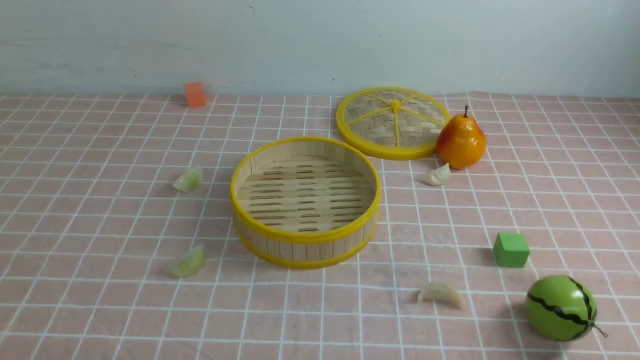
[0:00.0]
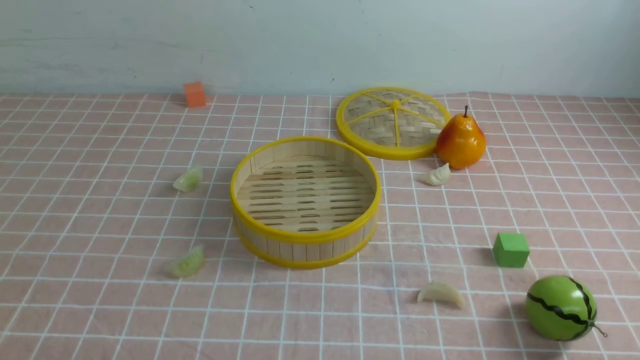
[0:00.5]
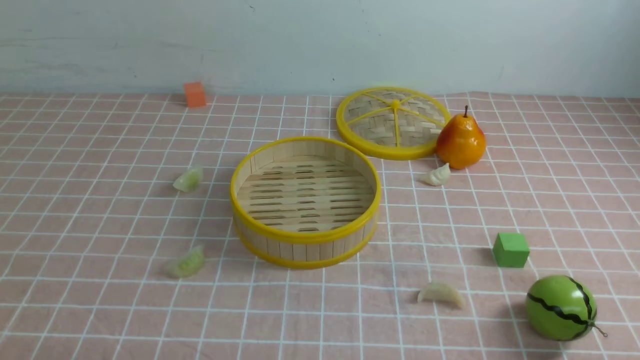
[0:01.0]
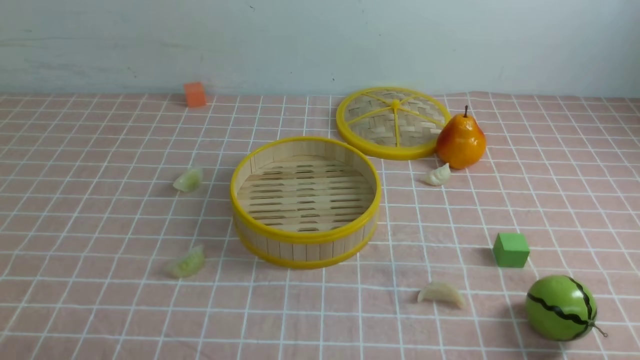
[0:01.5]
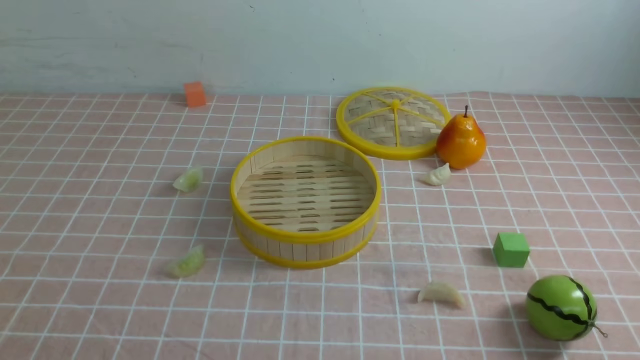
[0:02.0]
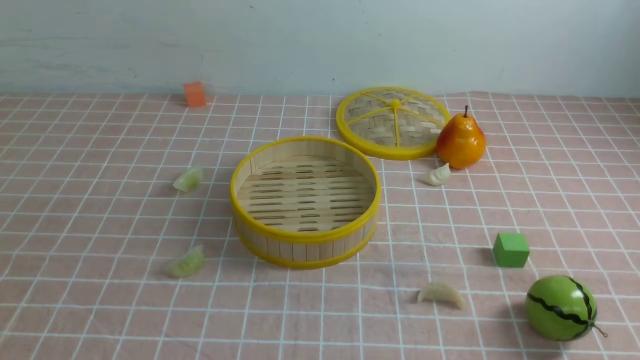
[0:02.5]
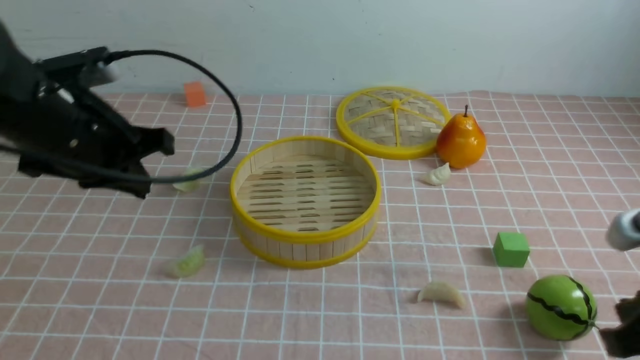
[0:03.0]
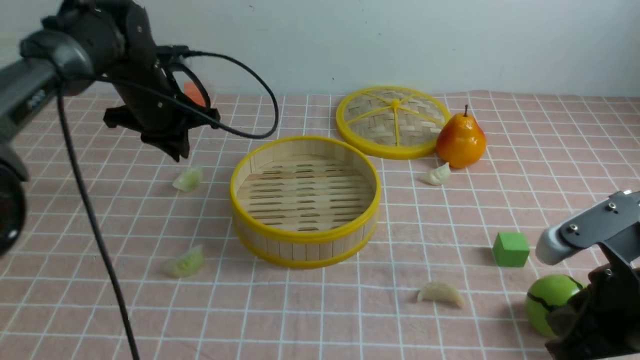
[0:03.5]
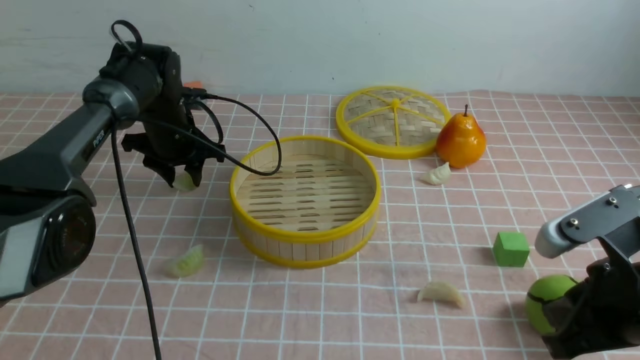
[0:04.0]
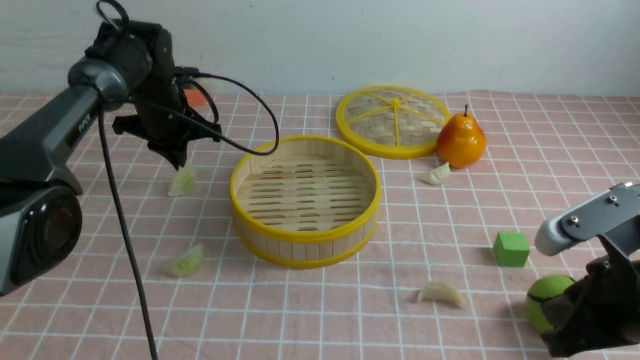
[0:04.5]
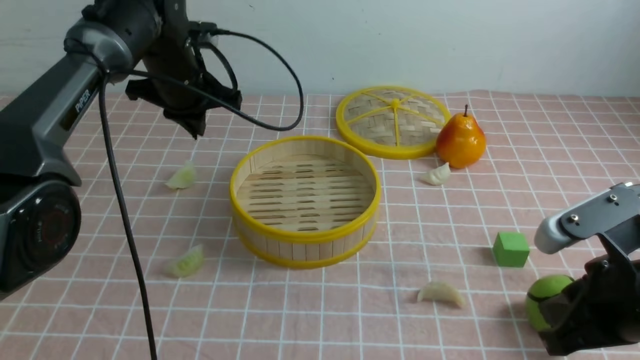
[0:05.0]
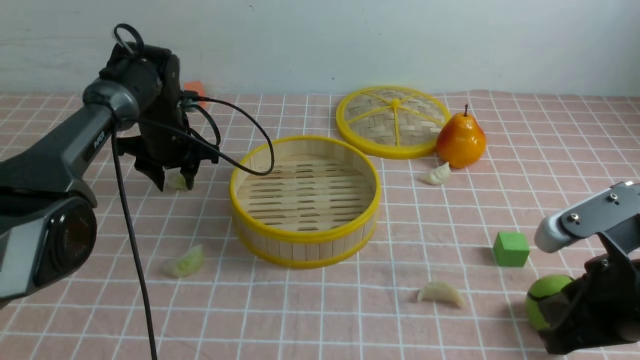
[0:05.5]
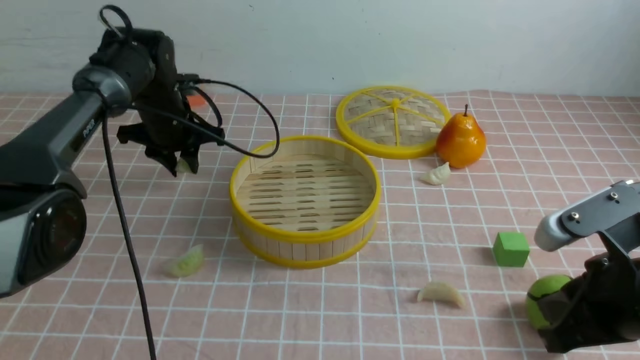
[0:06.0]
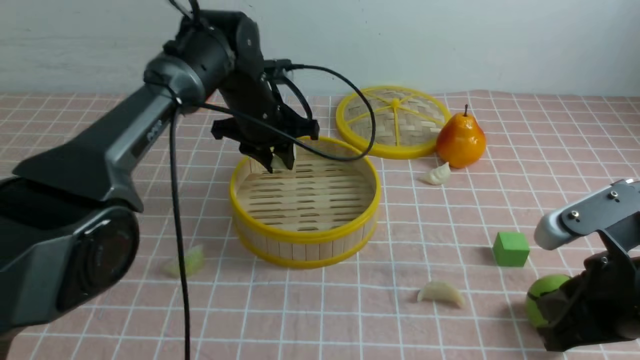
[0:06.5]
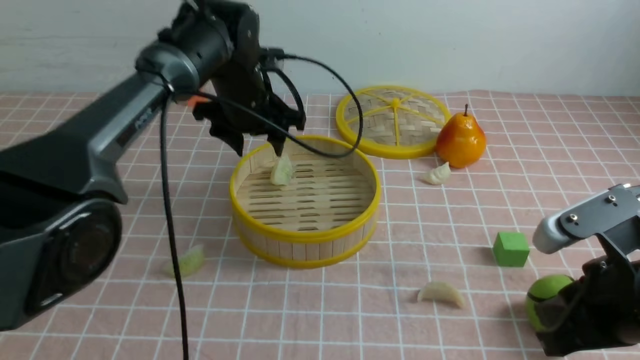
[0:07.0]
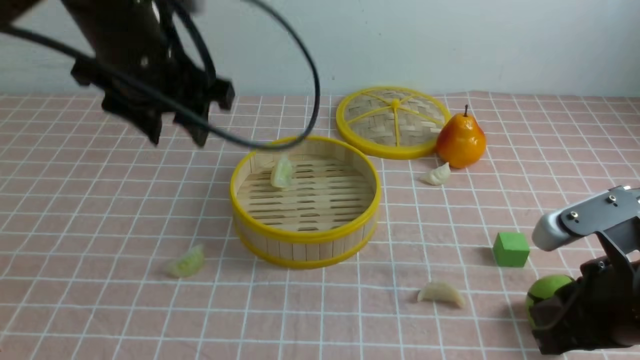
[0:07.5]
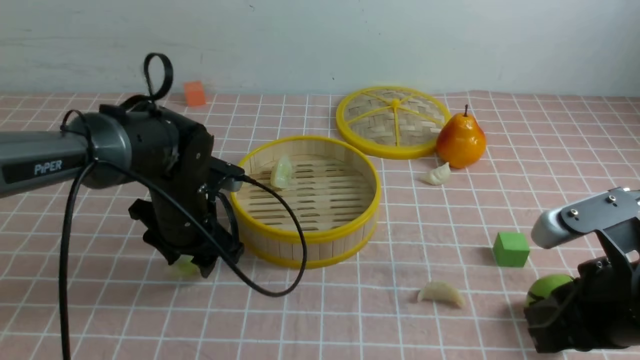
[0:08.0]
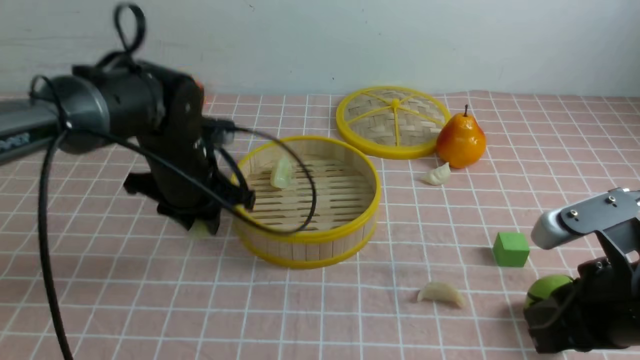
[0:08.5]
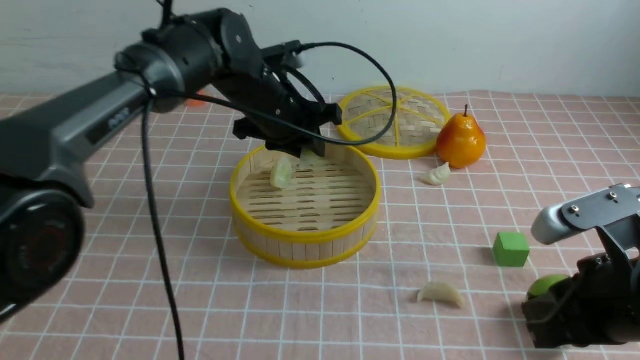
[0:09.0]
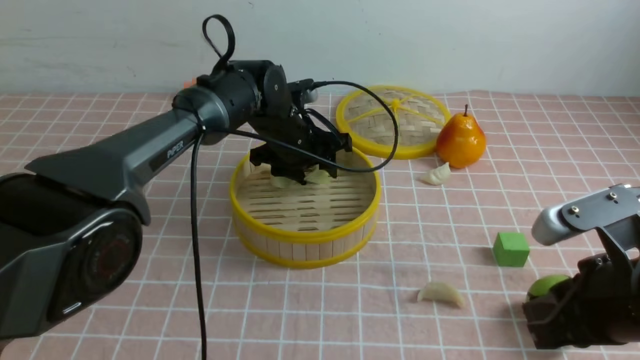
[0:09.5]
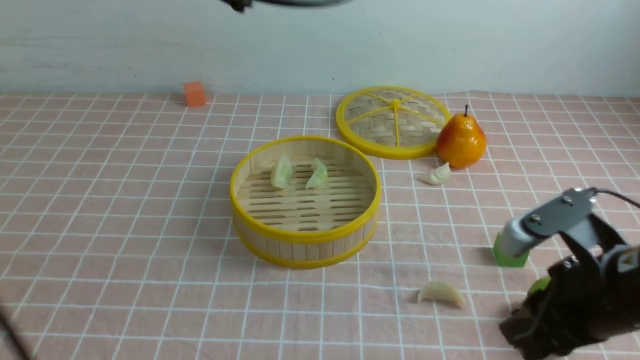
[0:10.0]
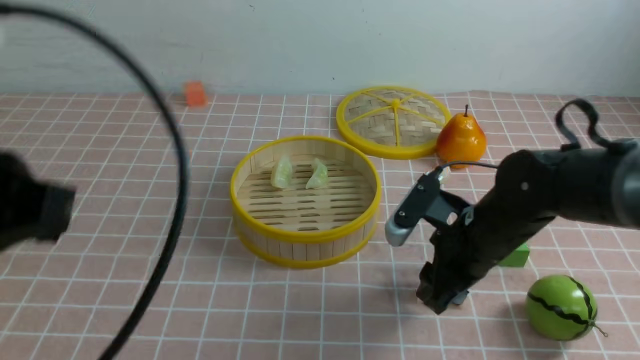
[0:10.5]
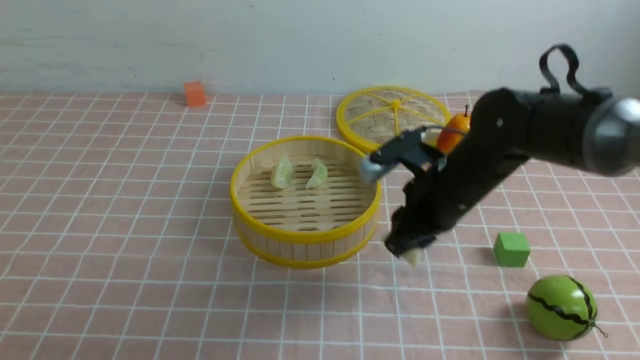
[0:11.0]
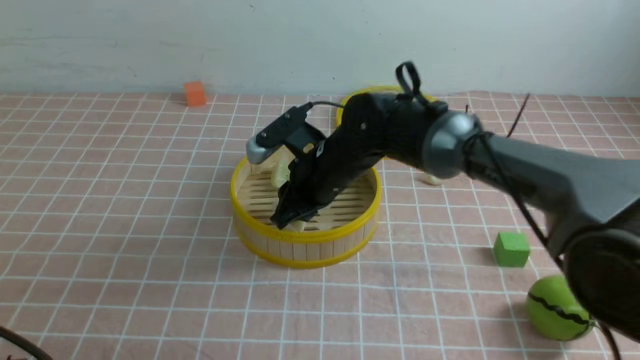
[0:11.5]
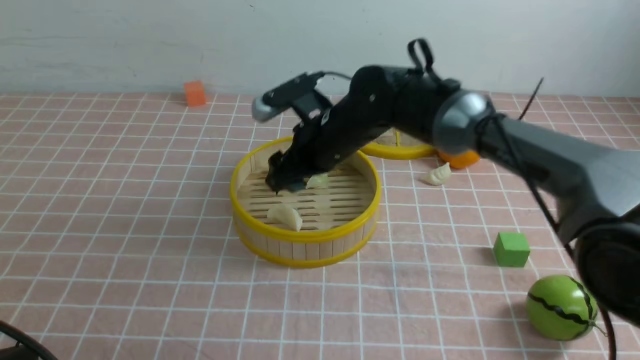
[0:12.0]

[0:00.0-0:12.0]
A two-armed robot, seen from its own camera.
Task of the whole recording: put the dumplings into the steamer on the table with the pink tablecloth.
Step, 0:00.0 to 0:06.0: use the left arm to grab a dumpling.
Step, 0:06.5 to 0:07.0: use the left arm to put the dumpling into the steamer.
Step, 0:07.5 to 0:08.0: use the left arm to grab a dumpling.
Step, 0:08.5 to 0:09.5: use the left arm to put the dumpling into the steamer.
Step, 0:10.0 to 0:10.5: use the right arm to grab a dumpling.
Step, 0:11.0 to 0:11.5: use the right arm to put the dumpling into the steamer.
0:02.0 to 0:04.0: The left gripper shifts some 50 cm forward, and opens up; the right gripper heads forward and to the left, covering some 15 cm, and closes its fingers.
0:04.0 to 0:06.0: The left gripper goes up and down, roughly 10 cm each way, reversing 2 times, and closes, then opens again.
0:06.0 to 0:08.0: The left gripper moves backward, roughly 15 cm, and reaches some 10 cm upward, then returns.
0:08.0 to 0:10.0: The left gripper heads upward, covering about 30 cm, and closes its fingers.
0:10.0 to 0:12.0: The left gripper goes about 35 cm backward, downward and to the left. The right gripper goes about 30 cm forward and to the left, and opens its fingers.

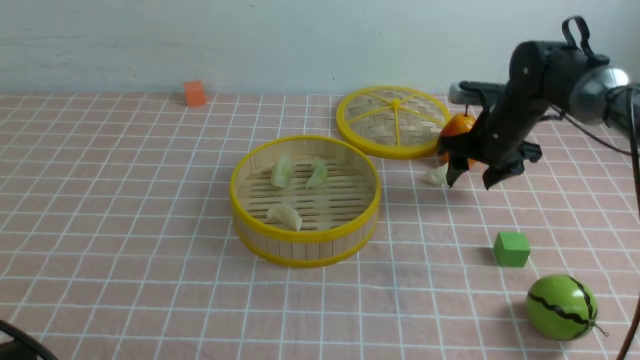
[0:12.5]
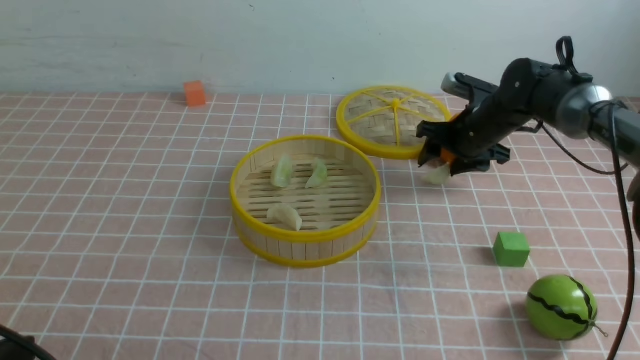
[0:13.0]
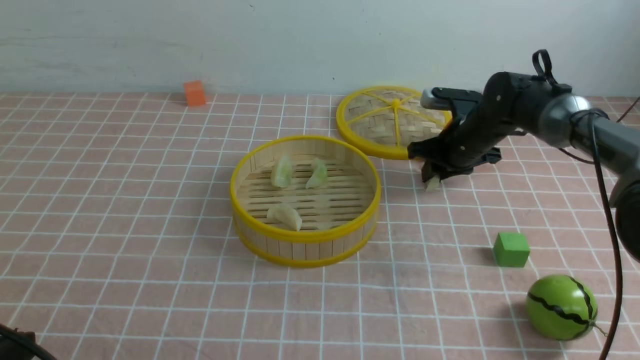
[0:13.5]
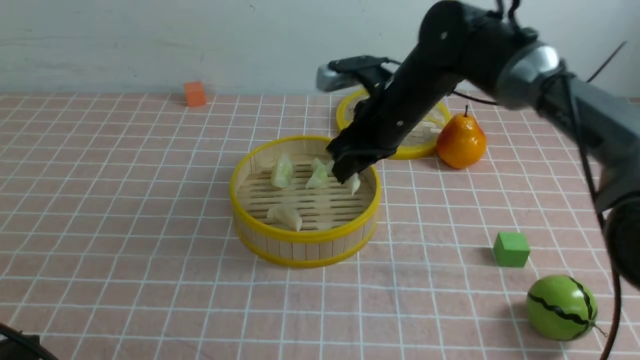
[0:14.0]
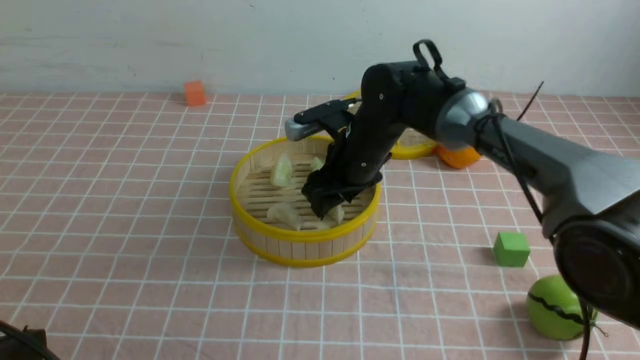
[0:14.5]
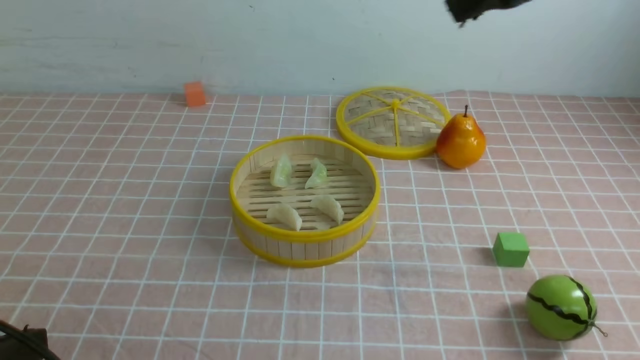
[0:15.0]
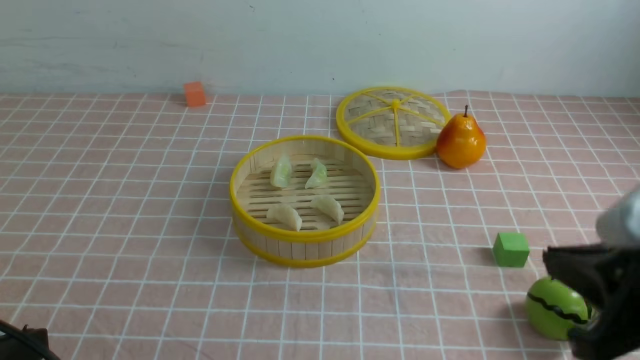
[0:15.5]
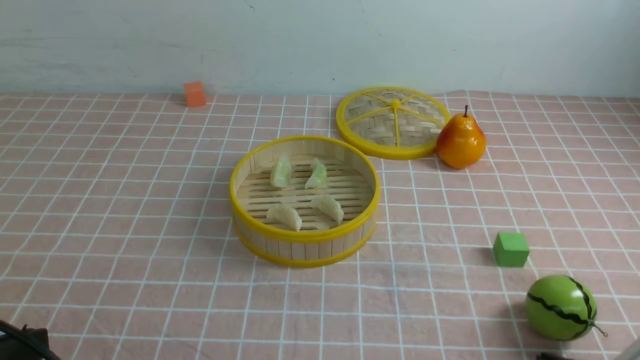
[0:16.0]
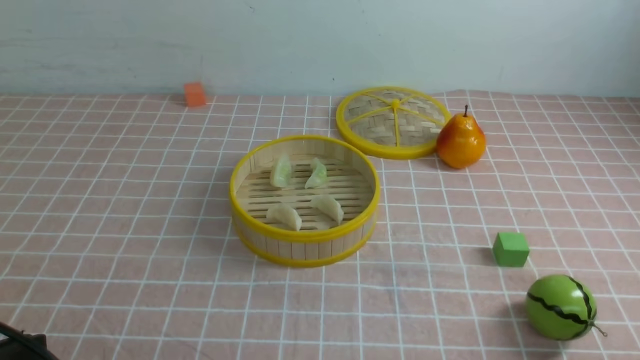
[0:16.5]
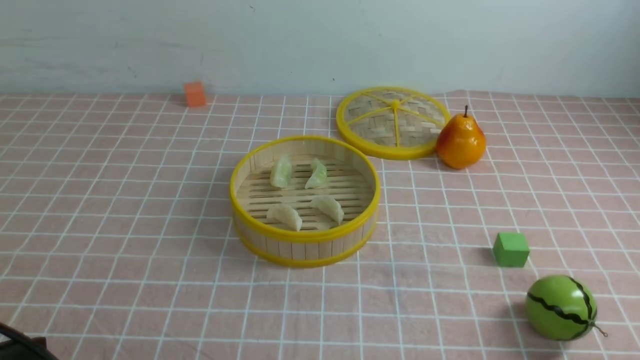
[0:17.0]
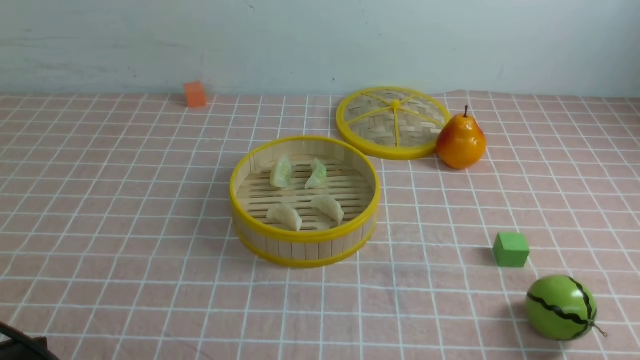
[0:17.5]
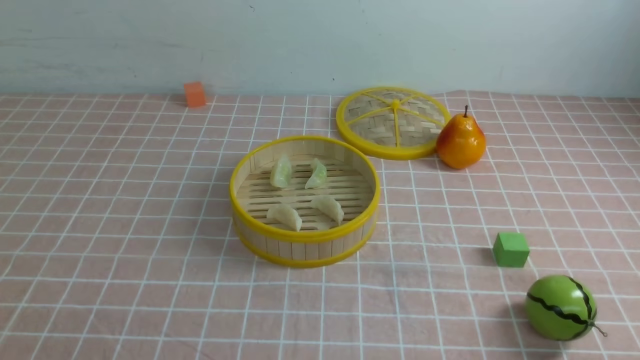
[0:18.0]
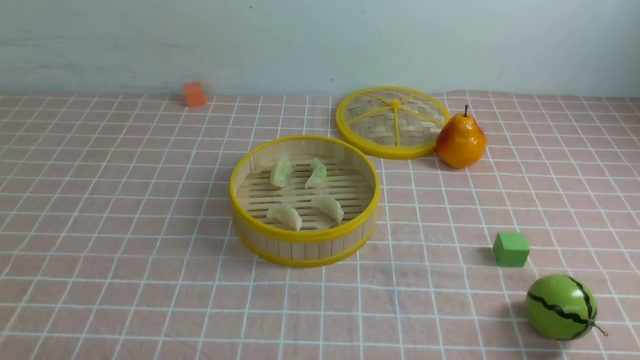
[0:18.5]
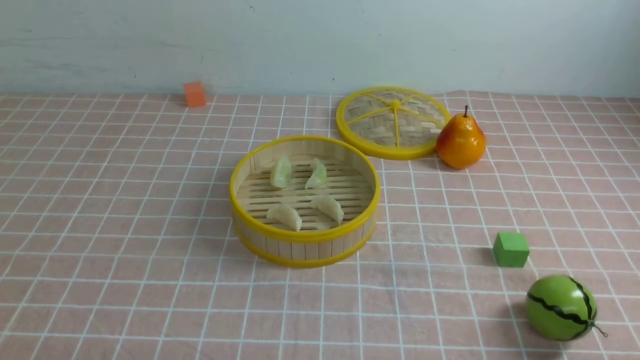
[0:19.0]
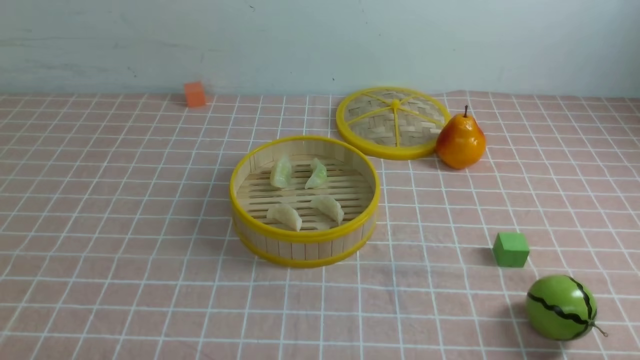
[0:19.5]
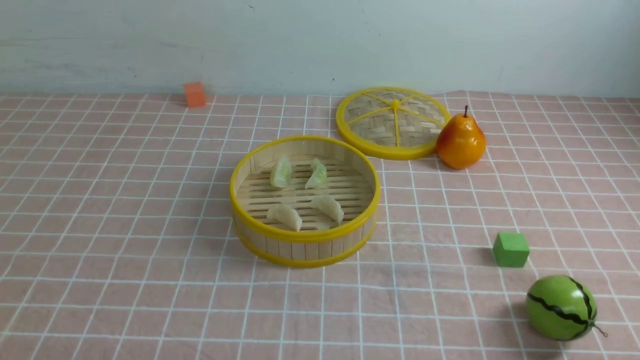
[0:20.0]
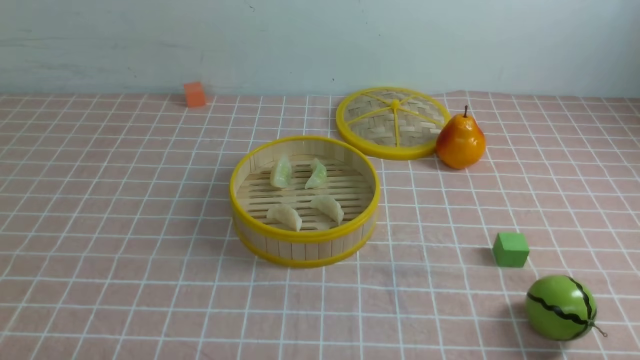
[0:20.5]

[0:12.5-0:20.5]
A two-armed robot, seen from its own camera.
Task of the whole recording: put the dumplings into the steamer on the table with the pink tablecloth.
Step, 0:12.5 to 0:13.5: use the right arm to grab a dumpling.
Step, 0:14.0 to 0:14.5: use the right arm to put the dumpling into the steamer.
0:12.5 to 0:14.5: The right gripper shifts approximately 15 cm to the left and backward, and closes and opens again.
0:14.5 to 0:16.5: The right gripper shifts about 40 cm backward and to the right, and closes.
0:16.5 to 0:18.5: The left gripper goes some 10 cm downward.
